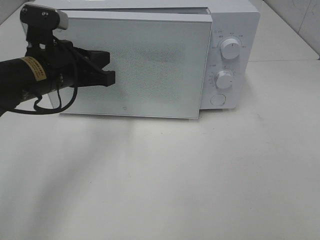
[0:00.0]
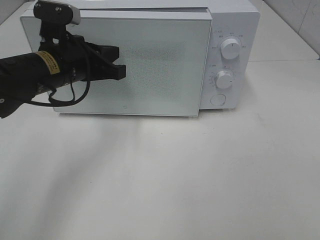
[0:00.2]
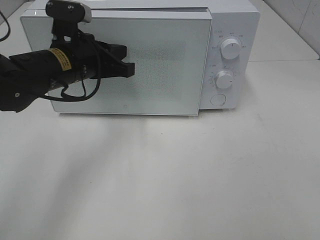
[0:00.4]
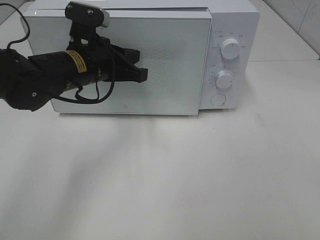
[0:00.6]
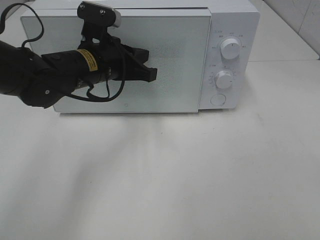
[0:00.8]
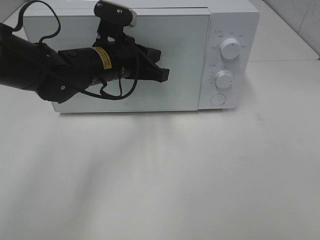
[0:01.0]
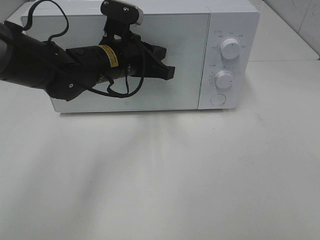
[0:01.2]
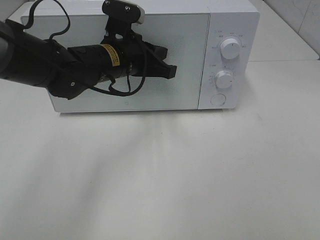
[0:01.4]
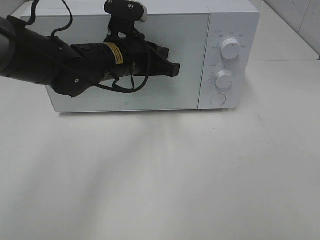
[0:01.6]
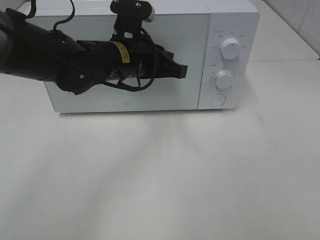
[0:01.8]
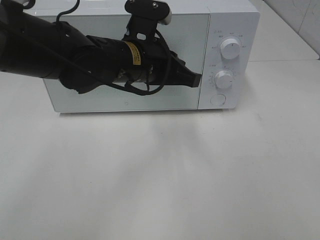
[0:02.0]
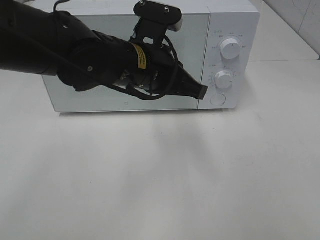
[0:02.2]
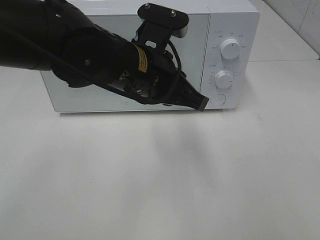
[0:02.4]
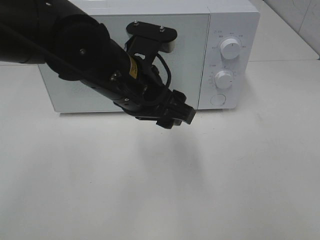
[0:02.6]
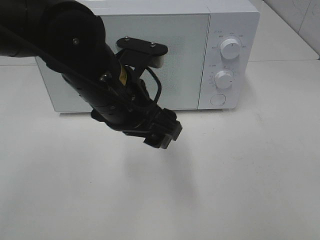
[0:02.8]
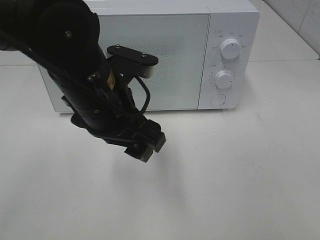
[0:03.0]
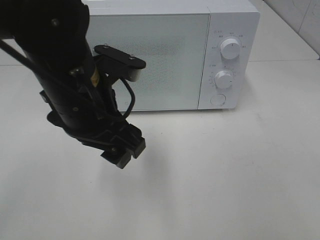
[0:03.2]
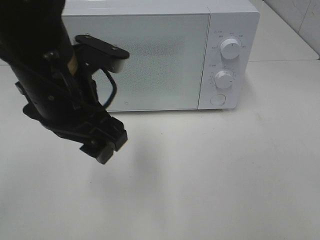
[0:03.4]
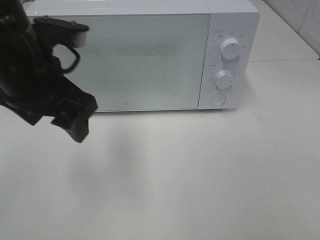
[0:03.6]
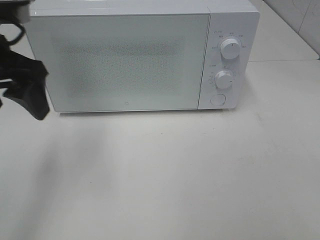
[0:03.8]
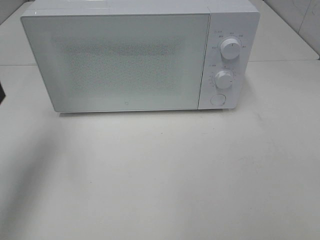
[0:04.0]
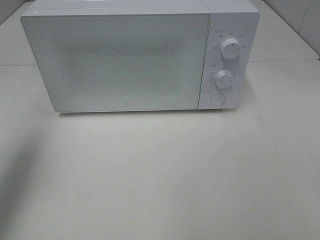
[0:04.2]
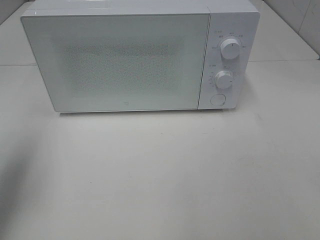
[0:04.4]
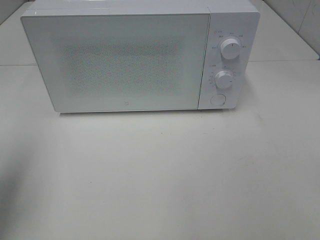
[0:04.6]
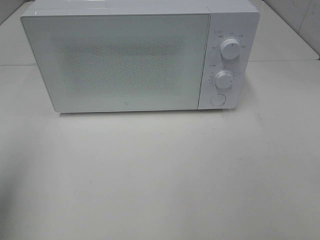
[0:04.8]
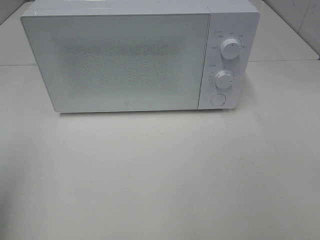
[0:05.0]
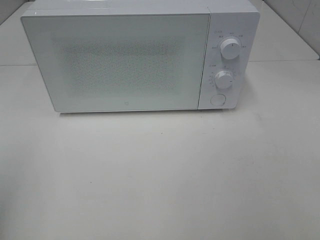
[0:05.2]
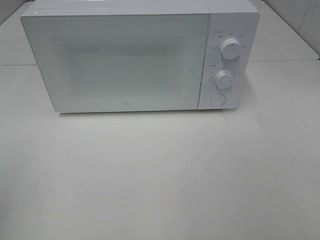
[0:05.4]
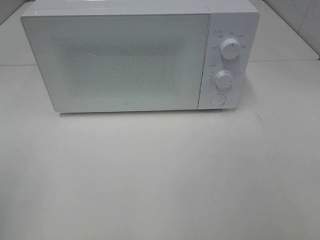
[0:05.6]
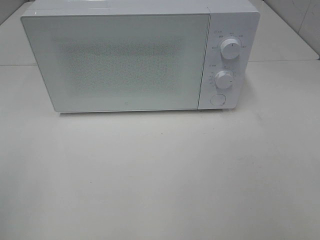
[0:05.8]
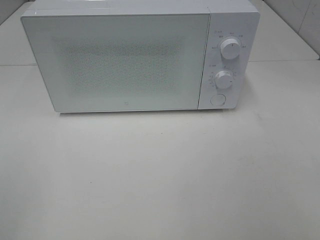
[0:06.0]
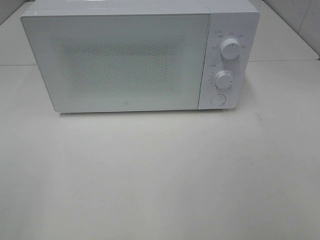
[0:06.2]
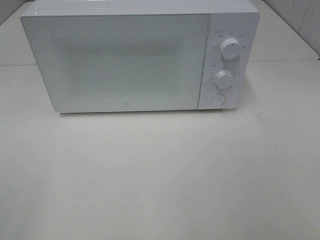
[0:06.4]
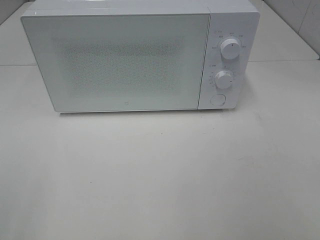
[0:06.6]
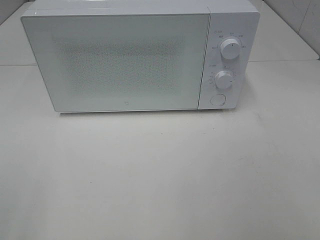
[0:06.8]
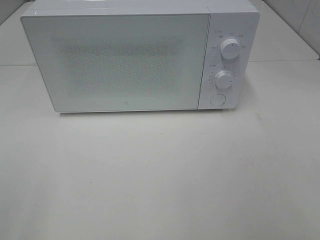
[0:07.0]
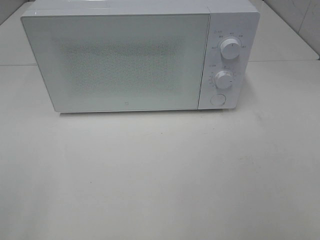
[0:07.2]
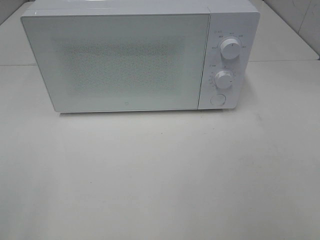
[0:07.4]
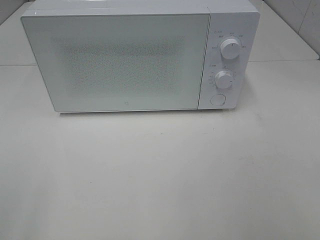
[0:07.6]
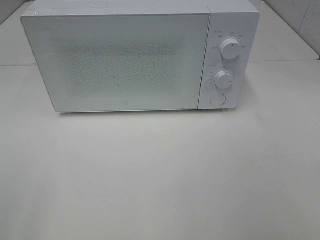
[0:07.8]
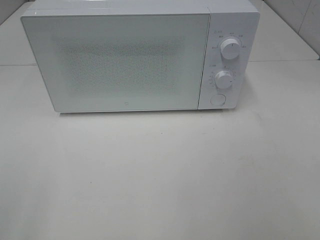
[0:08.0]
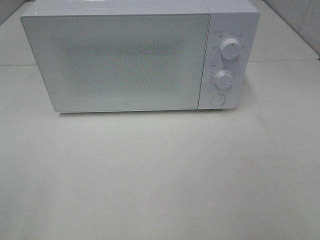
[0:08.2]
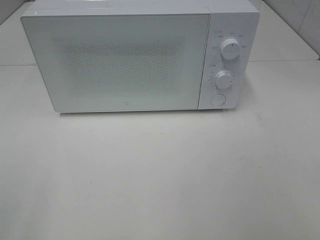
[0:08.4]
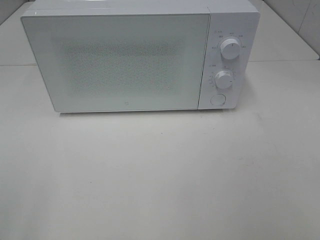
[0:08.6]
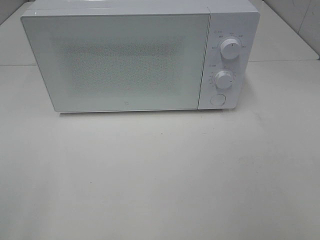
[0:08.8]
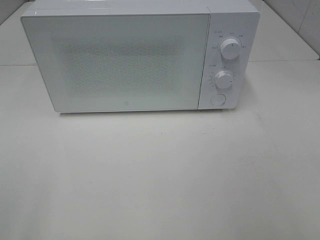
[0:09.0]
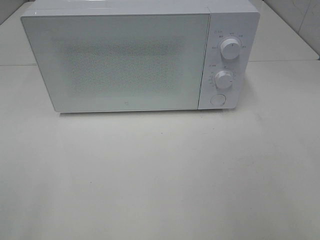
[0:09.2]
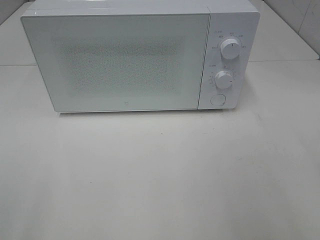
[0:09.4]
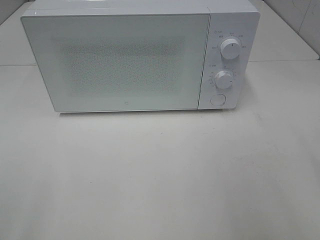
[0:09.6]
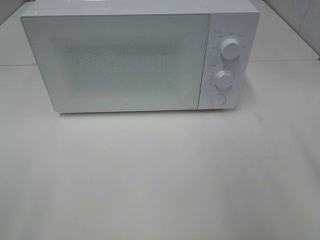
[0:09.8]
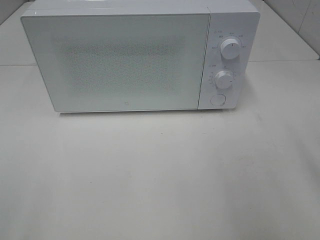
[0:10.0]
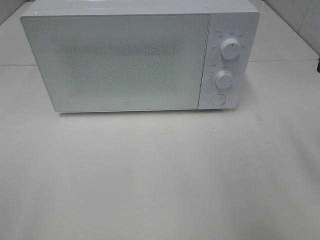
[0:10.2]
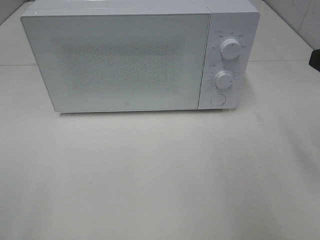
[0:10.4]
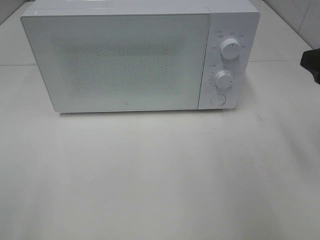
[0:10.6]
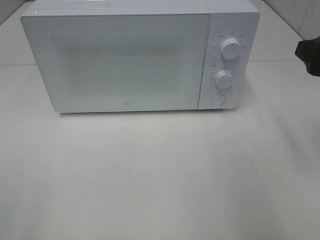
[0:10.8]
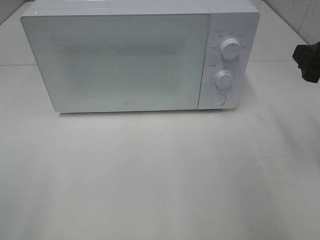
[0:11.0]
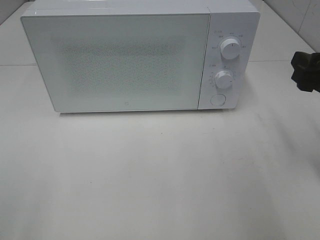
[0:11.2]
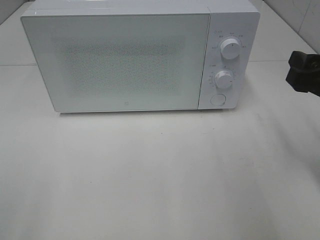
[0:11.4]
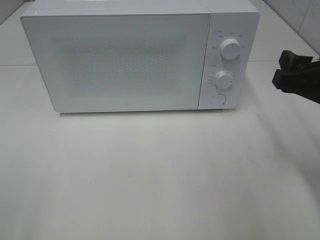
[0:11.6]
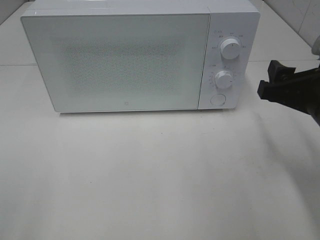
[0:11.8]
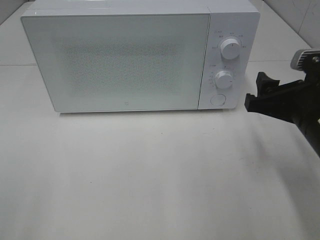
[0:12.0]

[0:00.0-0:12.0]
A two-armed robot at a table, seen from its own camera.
Task of the whole recording: Heat the burger.
0:00.0 to 0:01.6: The left gripper moves to the right, roughly 10 cm.
0:01.6 to 0:03.0: The left gripper goes roughly 10 cm backward, and opens.
0:03.0 to 0:04.4: The left gripper is displaced to the left by about 25 cm.
0:04.4 to 0:06.0: The left gripper moves backward, approximately 20 cm.
0:10.4 to 0:12.0: The right gripper travels downward and to the left by roughly 10 cm.

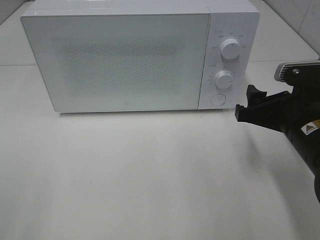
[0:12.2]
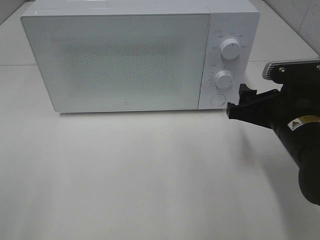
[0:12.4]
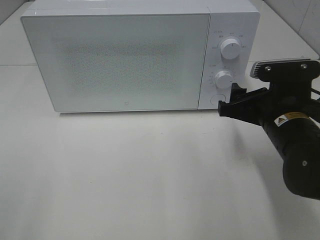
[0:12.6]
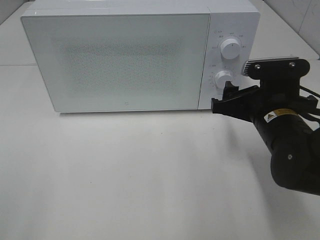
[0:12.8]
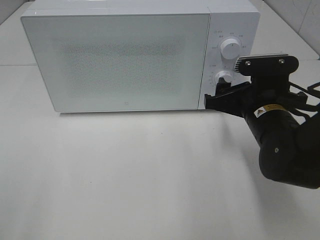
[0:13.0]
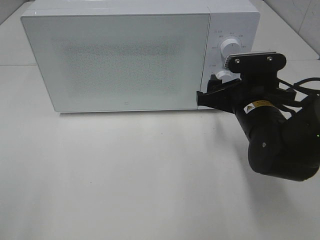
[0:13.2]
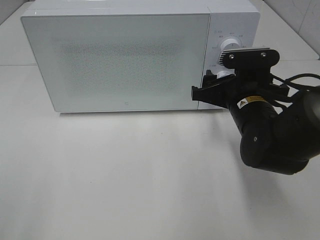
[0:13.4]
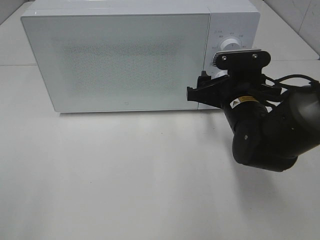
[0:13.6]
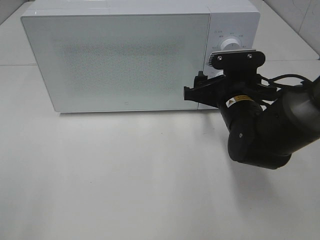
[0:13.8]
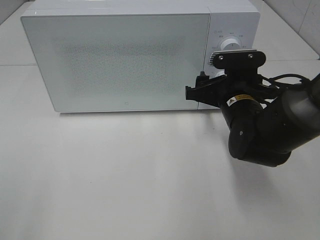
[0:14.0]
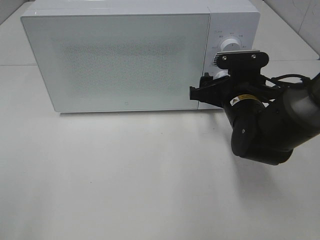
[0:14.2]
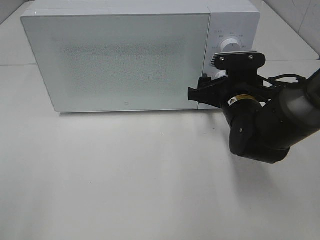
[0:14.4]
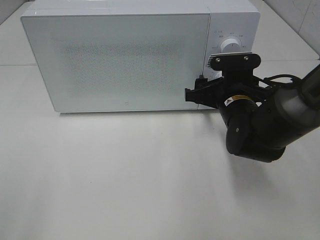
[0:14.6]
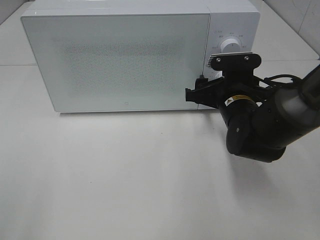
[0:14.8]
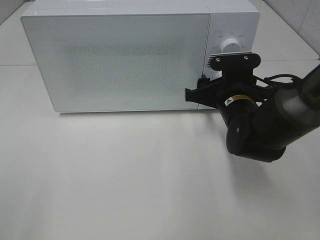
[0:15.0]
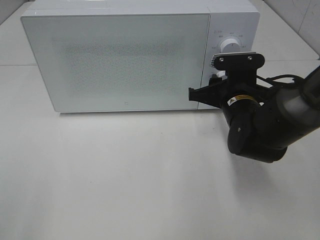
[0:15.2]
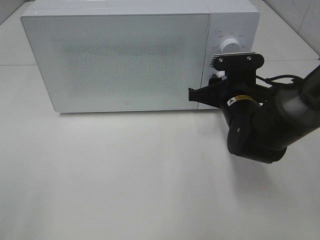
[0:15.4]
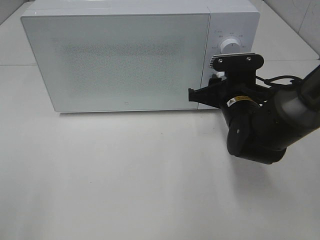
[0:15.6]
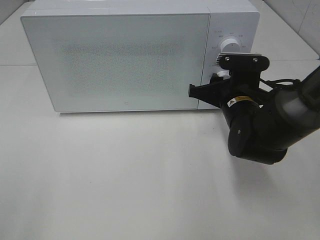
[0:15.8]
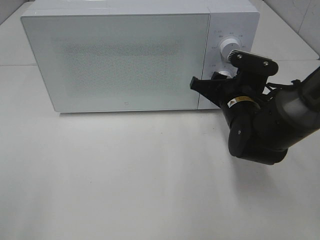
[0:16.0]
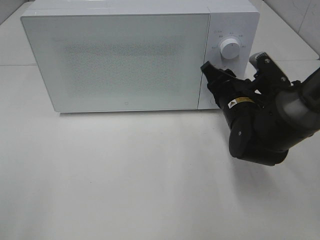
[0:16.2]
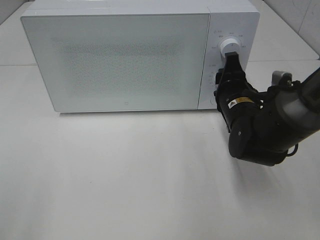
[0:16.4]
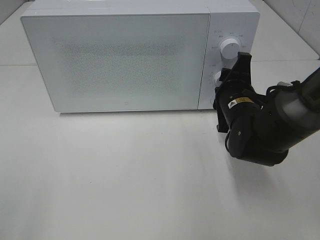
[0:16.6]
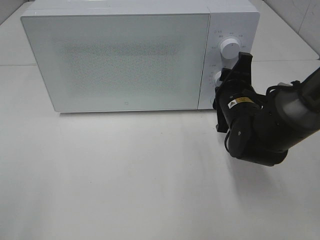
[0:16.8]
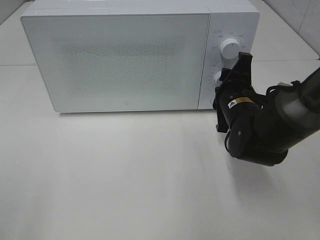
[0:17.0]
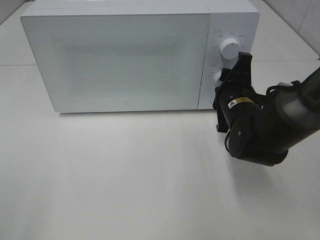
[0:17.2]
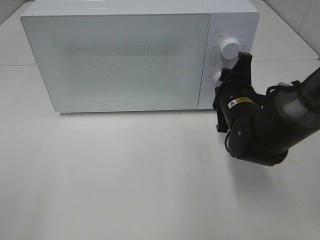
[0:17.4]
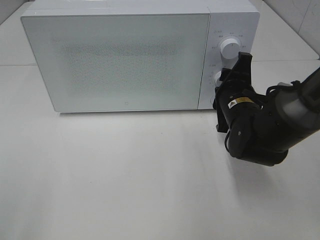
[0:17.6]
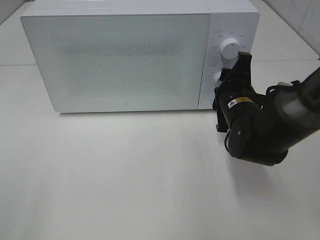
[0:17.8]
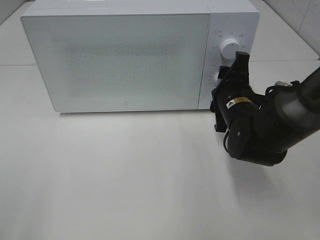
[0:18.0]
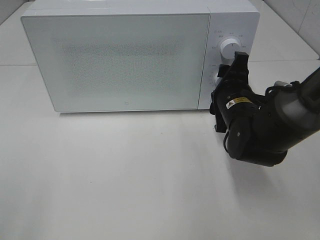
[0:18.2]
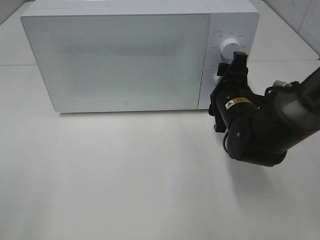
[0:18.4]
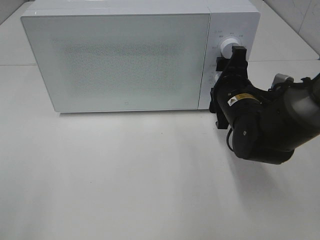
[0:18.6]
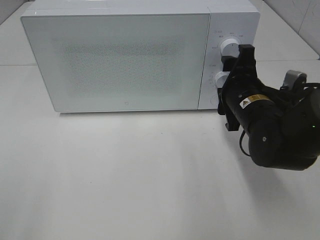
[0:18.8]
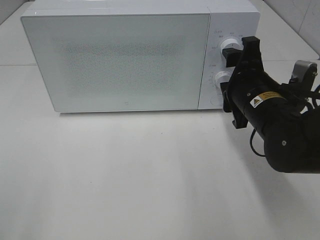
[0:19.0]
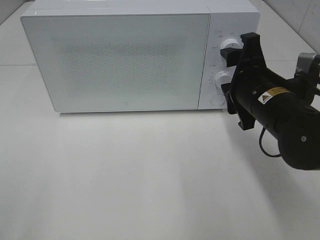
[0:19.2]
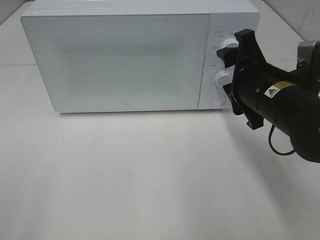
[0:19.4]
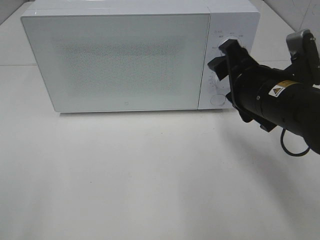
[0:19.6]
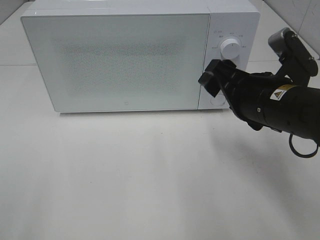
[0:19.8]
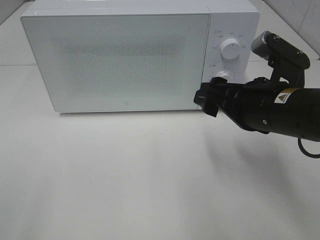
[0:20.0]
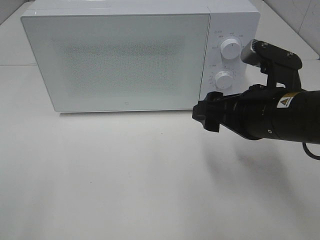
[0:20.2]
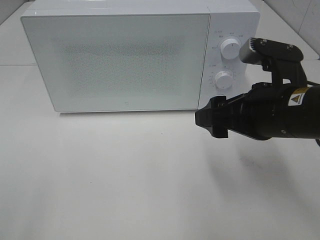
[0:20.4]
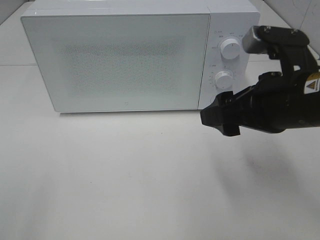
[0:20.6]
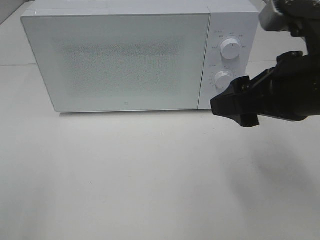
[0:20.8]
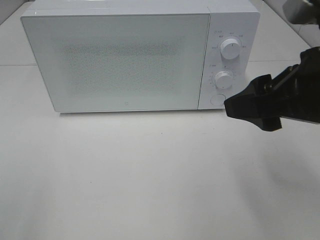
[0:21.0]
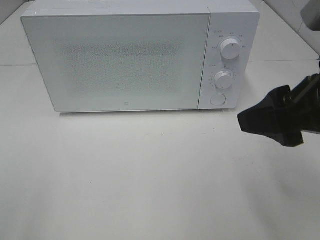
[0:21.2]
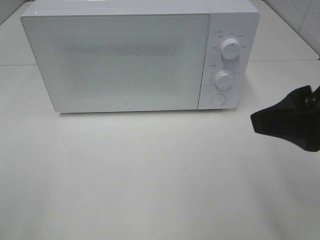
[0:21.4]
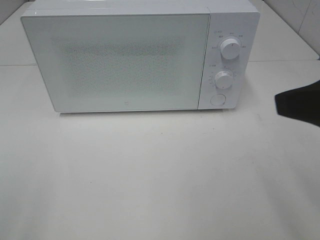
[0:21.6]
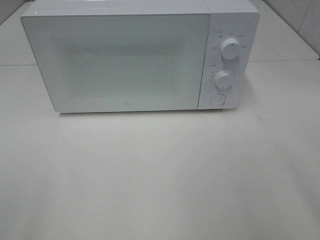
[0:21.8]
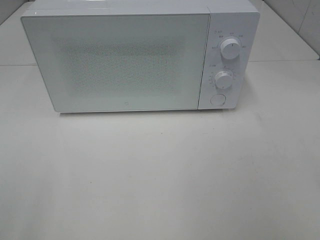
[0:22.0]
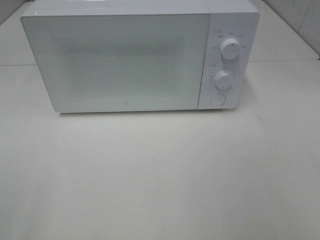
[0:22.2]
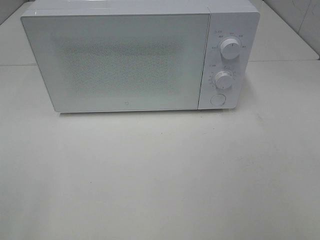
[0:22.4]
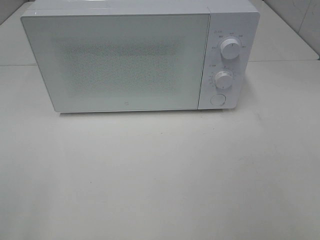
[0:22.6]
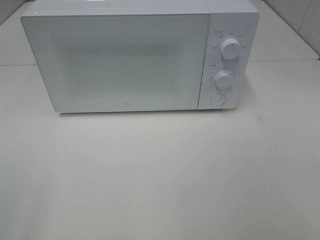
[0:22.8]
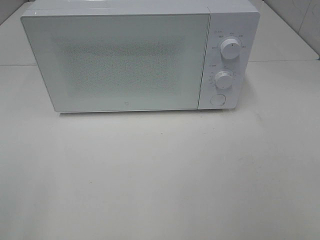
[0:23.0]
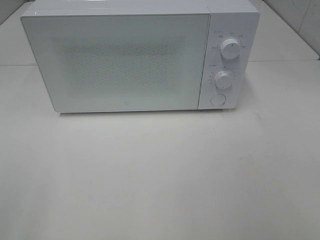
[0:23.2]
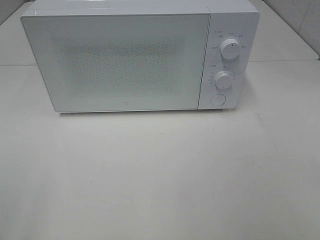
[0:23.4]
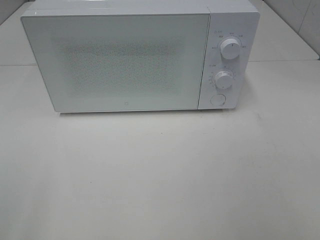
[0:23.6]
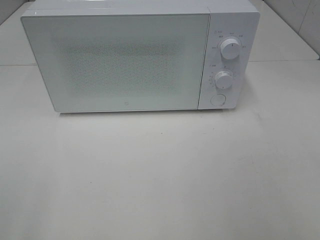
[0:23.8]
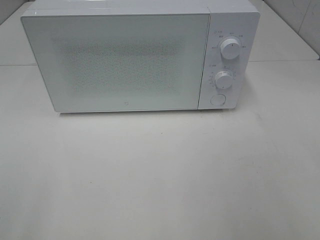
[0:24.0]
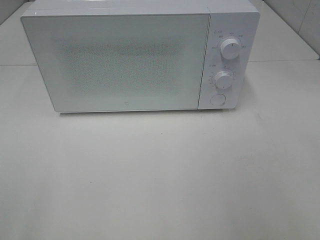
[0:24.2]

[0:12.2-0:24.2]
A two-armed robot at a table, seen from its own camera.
Task of the whole recording: Heat the burger.
Step, 0:12.2 to 0:18.2: Right hand: twist timer button.
0:12.2 to 0:13.8: The right gripper is displaced forward and to the left by some 10 cm.
0:13.8 to 0:15.2: The right gripper closes its fingers.
0:16.6 to 0:18.2: Neither gripper changes place.
0:18.2 to 0:19.8: The right gripper is displaced backward and upward by approximately 10 cm.
0:19.8 to 0:21.2: The right gripper travels upward and backward by approximately 15 cm.
0:21.2 to 0:22.6: The right gripper moves backward and to the right, about 20 cm.
